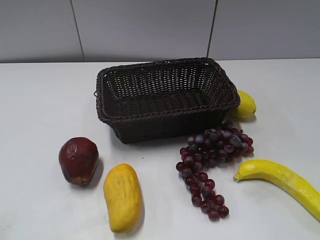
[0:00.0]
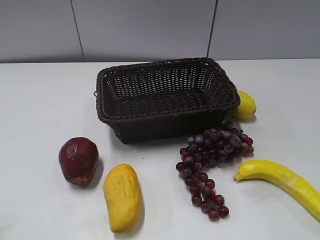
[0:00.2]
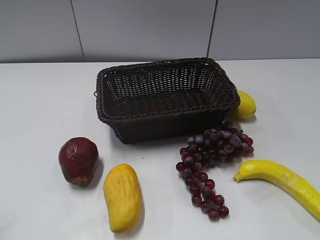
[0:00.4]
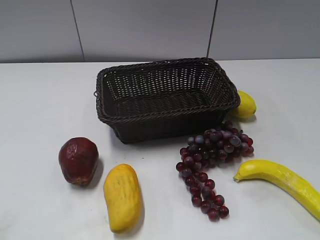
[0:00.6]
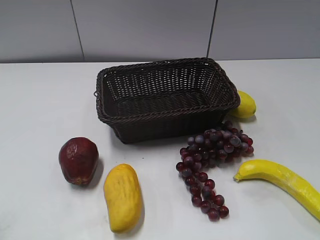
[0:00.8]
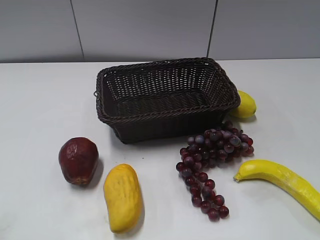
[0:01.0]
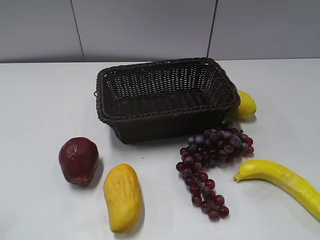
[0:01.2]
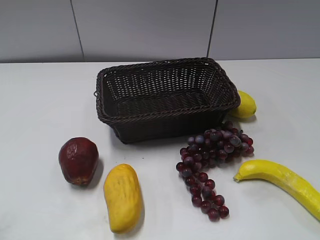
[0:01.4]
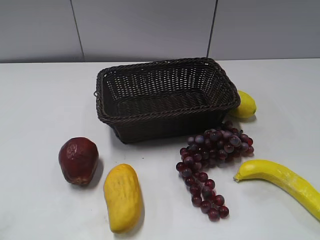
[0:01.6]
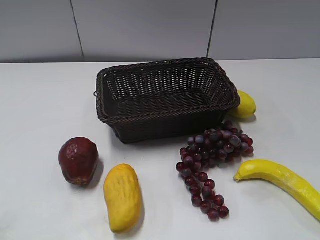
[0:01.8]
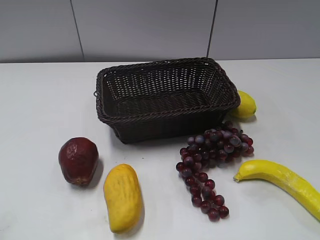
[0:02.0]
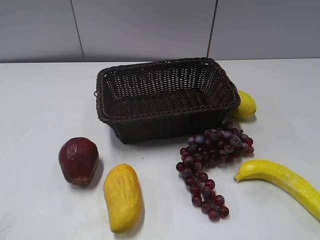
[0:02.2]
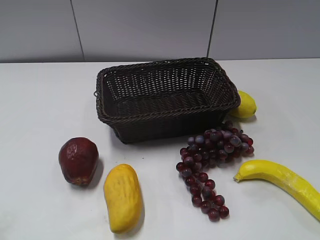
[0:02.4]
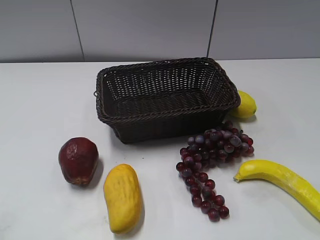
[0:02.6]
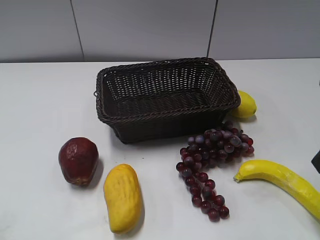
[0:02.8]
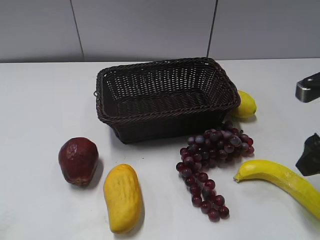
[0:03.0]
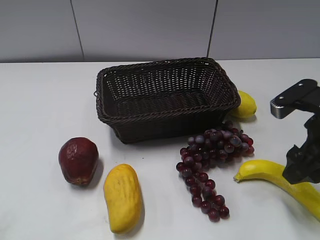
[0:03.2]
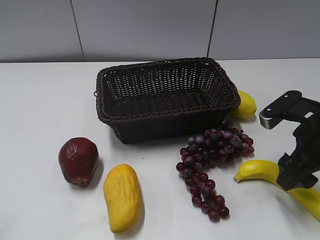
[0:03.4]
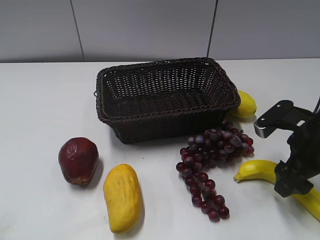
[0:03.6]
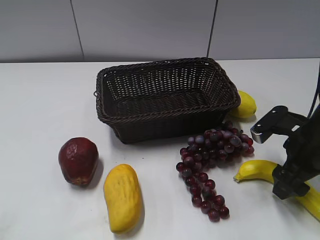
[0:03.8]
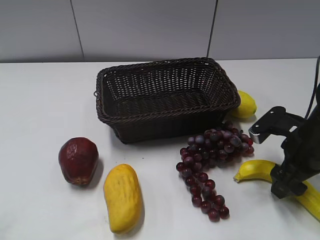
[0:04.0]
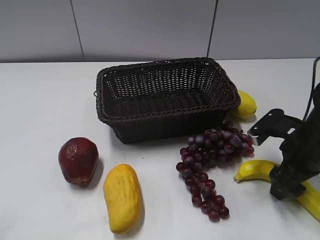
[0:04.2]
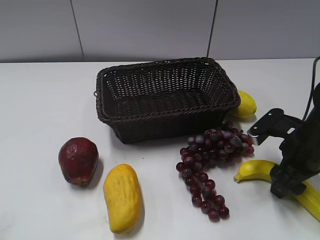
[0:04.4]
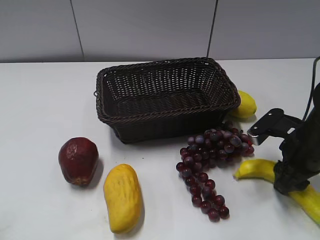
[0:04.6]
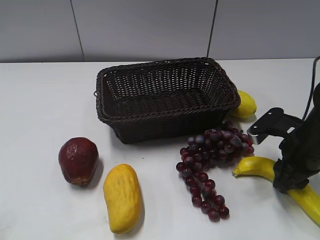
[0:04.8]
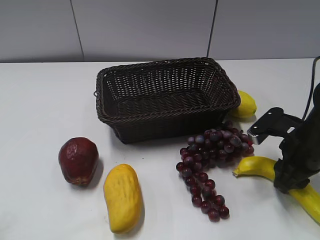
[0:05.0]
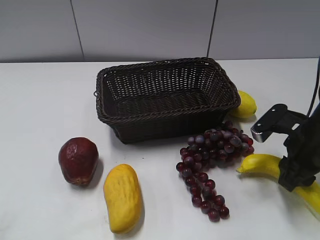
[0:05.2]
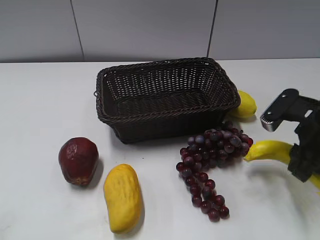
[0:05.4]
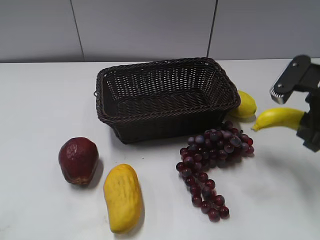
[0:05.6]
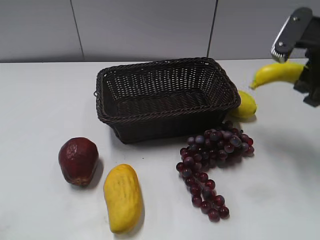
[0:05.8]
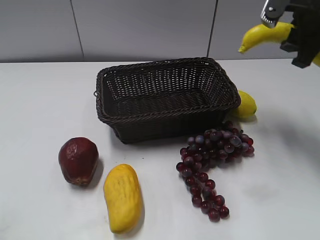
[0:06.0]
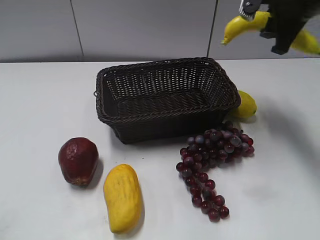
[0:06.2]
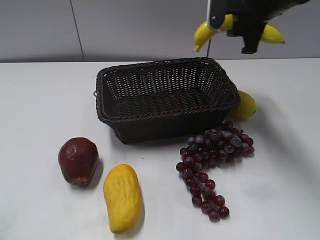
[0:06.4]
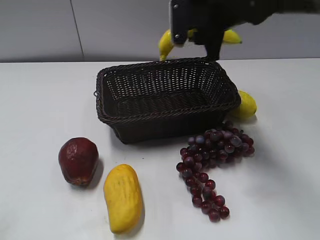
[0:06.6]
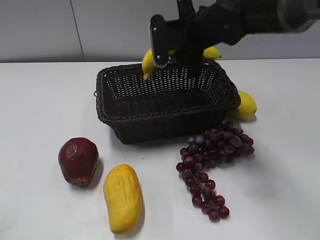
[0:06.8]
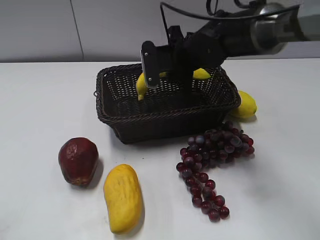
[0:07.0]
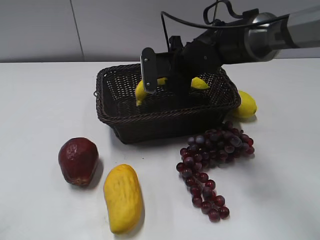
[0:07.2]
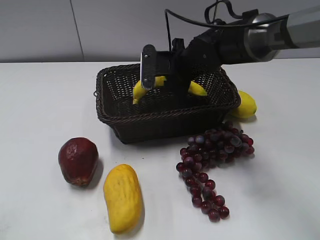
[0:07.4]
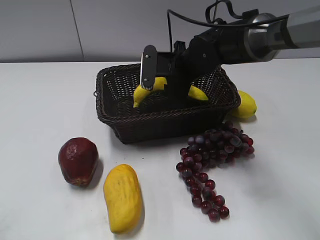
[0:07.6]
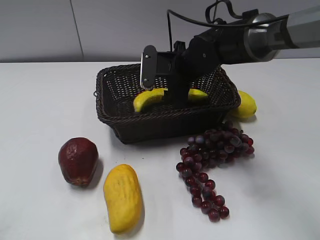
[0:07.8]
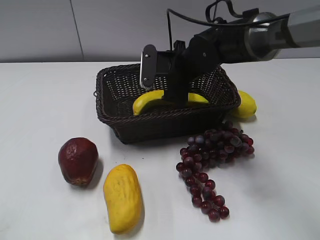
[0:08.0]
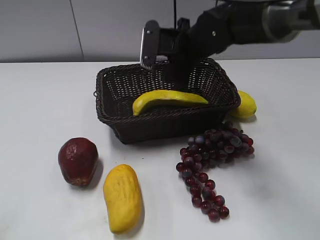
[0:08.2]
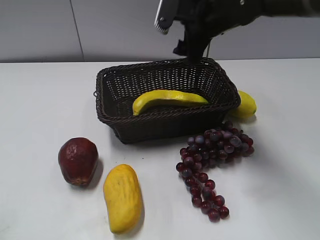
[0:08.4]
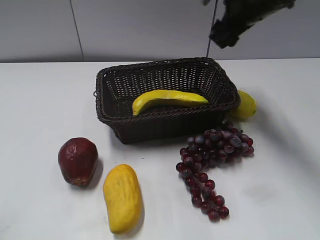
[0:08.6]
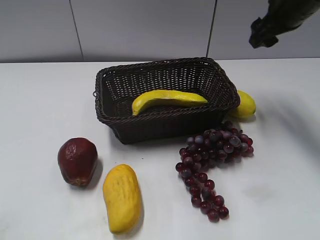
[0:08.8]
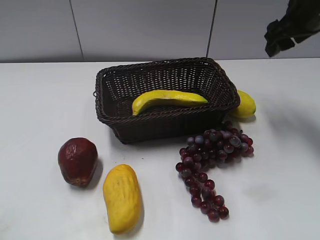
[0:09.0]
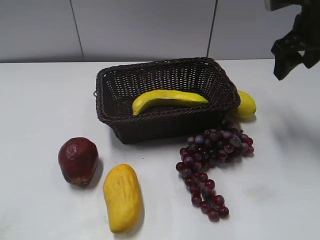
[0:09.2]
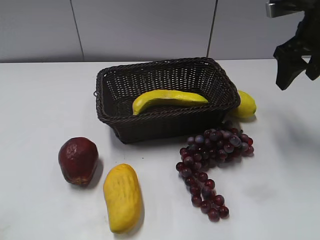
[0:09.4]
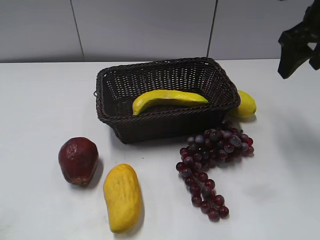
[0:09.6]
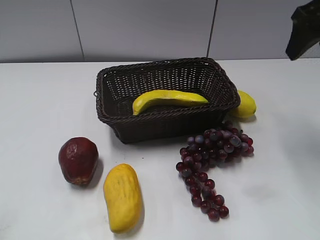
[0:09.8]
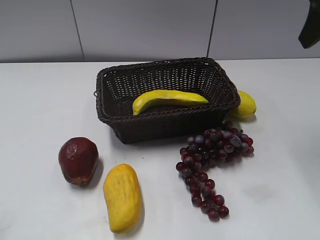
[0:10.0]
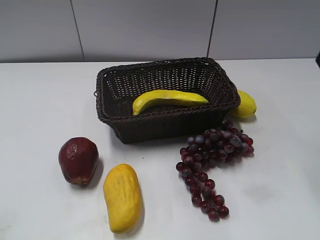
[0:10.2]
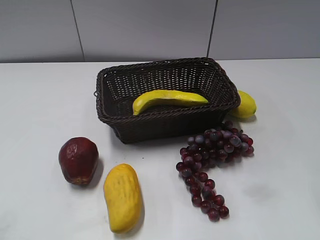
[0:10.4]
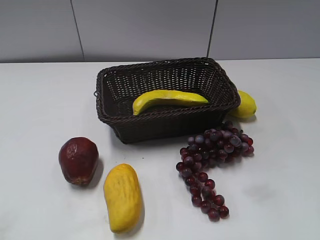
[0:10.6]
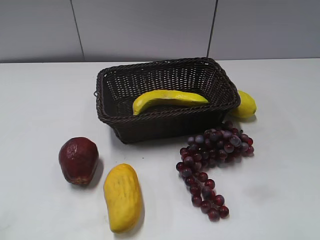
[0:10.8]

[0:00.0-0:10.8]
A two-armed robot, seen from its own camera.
Step, 0:02.6 to 0:05.0: Grasp the banana with right gripper.
Step, 0:05.2 to 0:08.0: Place the banana in the basket with right gripper.
0:01.6 to 0:03.0: The right gripper goes approximately 25 cm forward.
0:03.0 to 0:04.6: The right gripper heads downward, covering approximately 10 cm, and closes up.
0:04.6 to 0:06.2: The right gripper is displaced upward and forward by some 20 cm.
0:06.2 to 0:07.8: The right gripper heads to the left and downward, covering some 20 cm, and opens.
0:07.8 to 0:09.2: The right gripper shifts roughly 20 cm to the right and upward.
0:09.2 to 0:10.8: The right gripper goes approximately 25 cm backward.

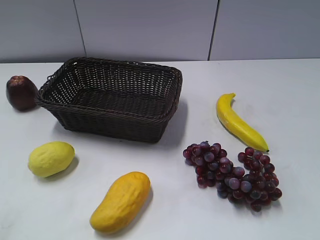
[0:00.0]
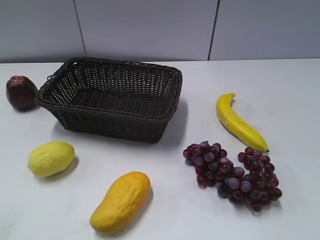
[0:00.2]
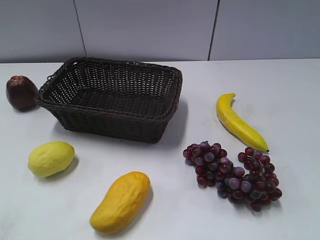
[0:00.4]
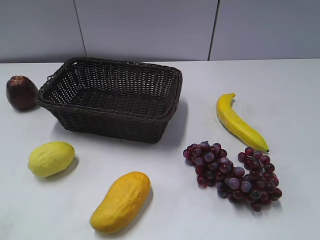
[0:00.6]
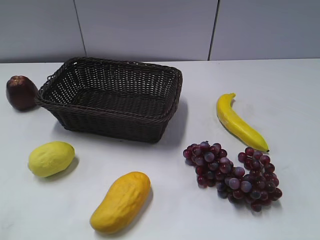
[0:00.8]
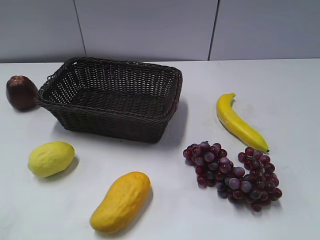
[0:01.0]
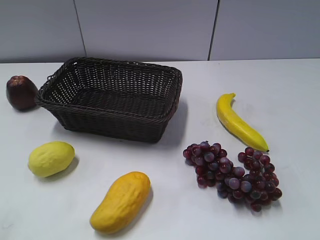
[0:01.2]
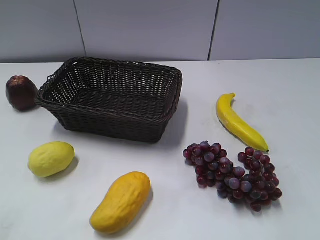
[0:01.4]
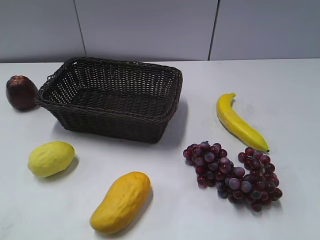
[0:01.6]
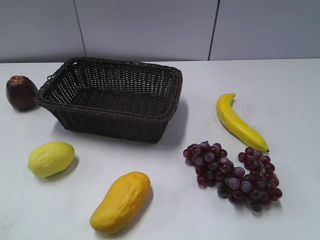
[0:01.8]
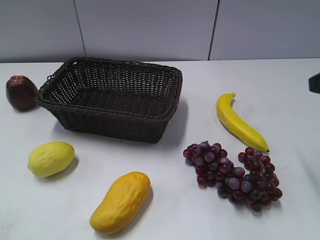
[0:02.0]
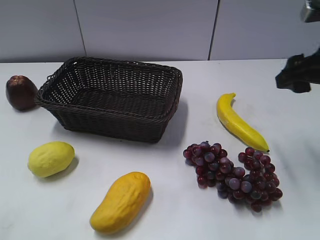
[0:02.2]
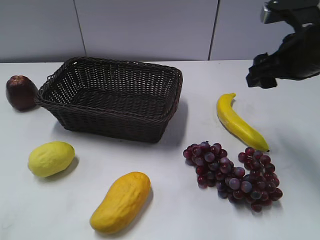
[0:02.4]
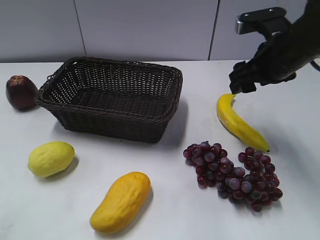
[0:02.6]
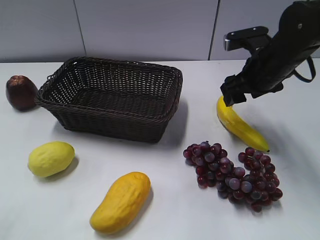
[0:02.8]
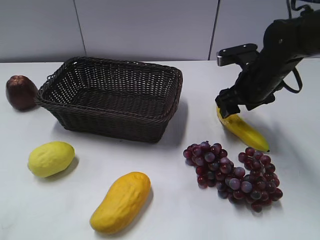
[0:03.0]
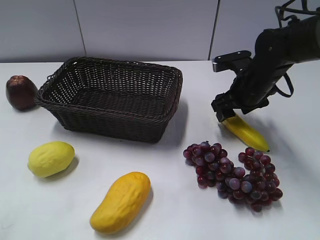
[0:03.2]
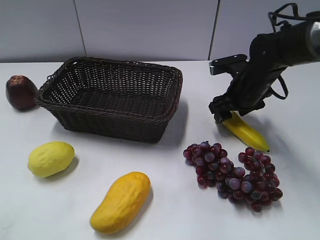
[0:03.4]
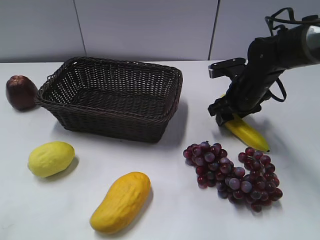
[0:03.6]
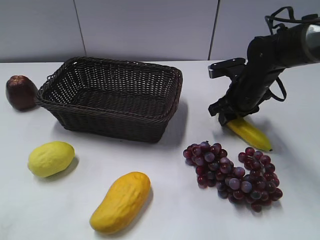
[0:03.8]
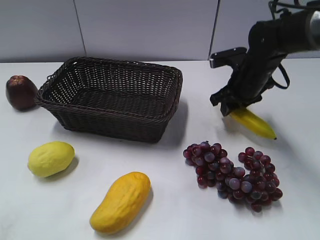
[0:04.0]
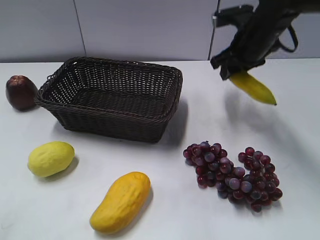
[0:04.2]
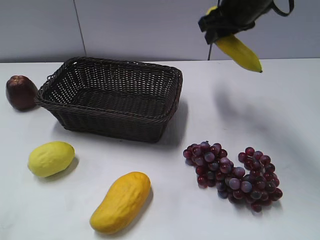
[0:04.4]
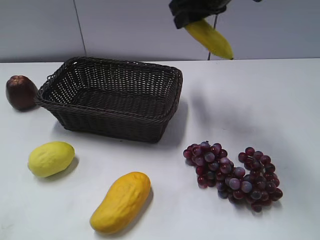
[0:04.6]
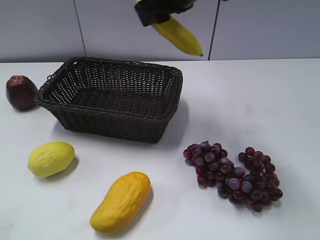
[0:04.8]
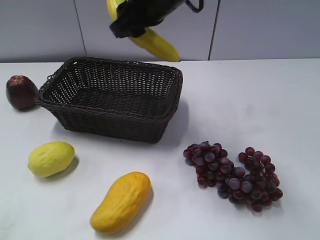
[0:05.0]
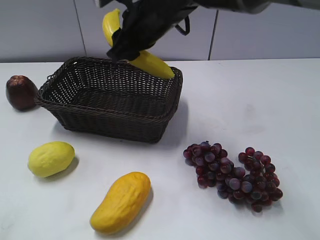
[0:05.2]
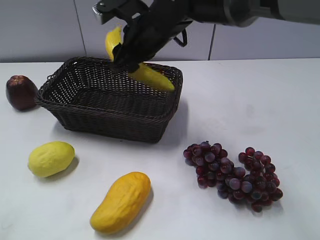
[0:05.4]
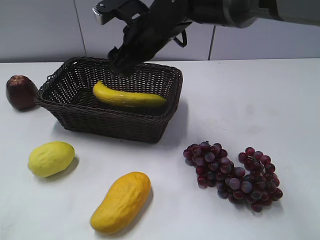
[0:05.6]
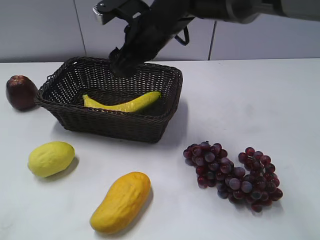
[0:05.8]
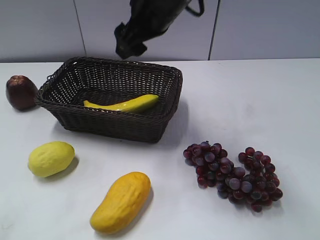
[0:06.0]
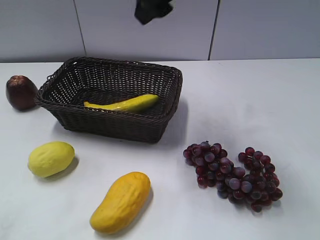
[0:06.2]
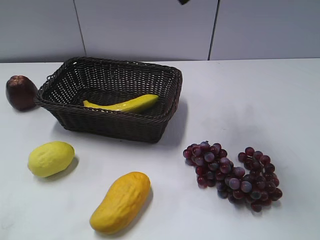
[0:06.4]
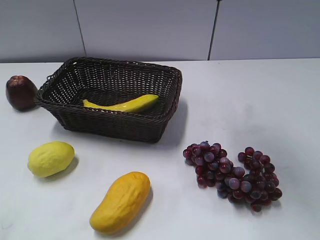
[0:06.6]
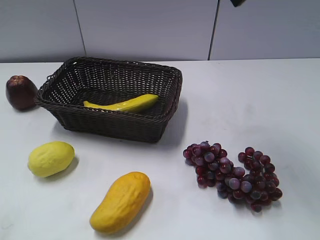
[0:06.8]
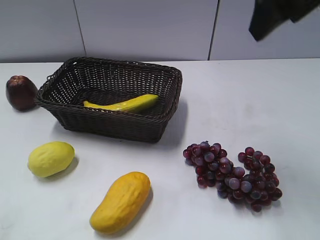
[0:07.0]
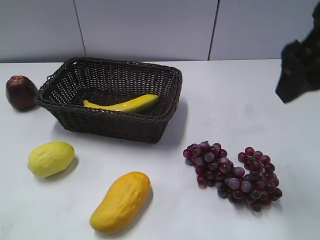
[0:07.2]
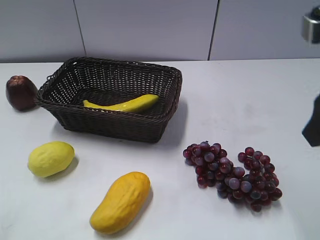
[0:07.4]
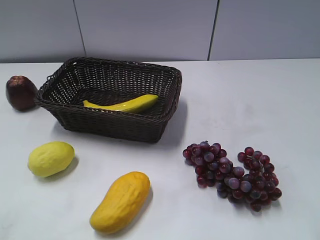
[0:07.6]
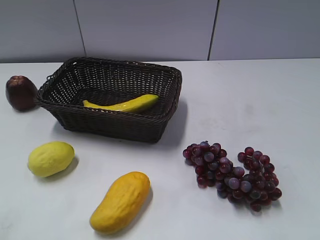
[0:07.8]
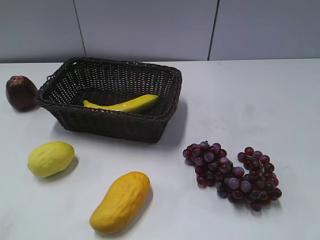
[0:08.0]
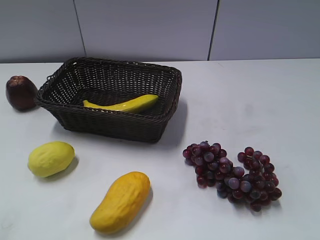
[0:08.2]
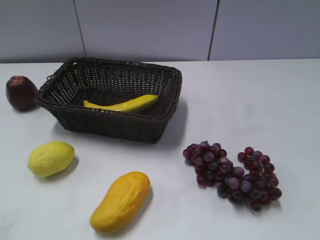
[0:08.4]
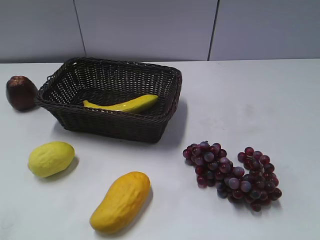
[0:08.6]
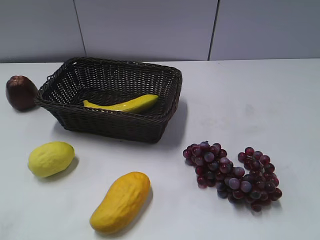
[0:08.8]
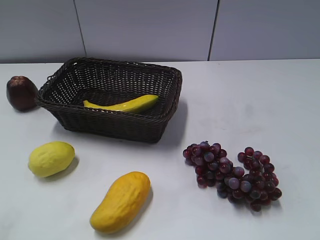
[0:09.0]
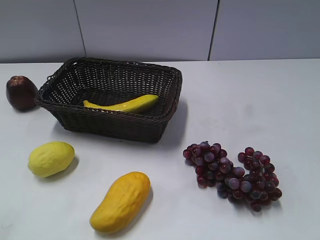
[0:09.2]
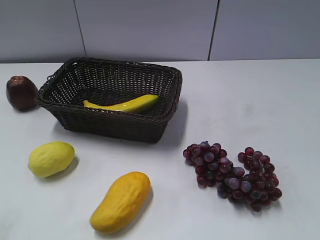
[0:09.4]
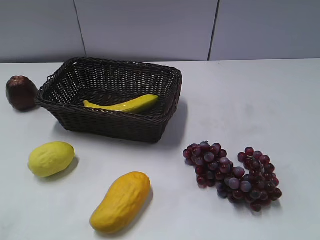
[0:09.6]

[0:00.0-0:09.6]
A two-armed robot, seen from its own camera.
Step, 0:02.0 to 0:04.0: Grasp the banana with right gripper.
Step, 0:04.2 to 0:05.8: Place the banana in the basket with right gripper.
0:01.6 to 0:03.2: The right gripper moves forward, downward and to the left, some 35 cm.
0:03.2 to 0:04.8: The right gripper is displaced upward and to the left by approximately 25 cm, and closes up.
0:04.8 to 0:06.4: The right gripper goes roughly 10 cm upward, backward and to the right, and opens up.
0:06.4 to 0:08.0: The right gripper moves backward and to the right, approximately 35 cm.
